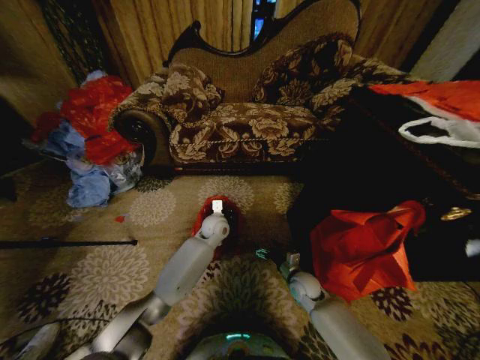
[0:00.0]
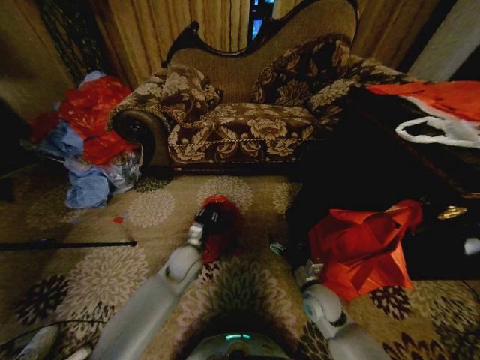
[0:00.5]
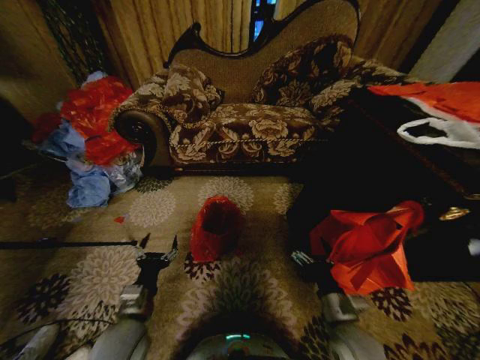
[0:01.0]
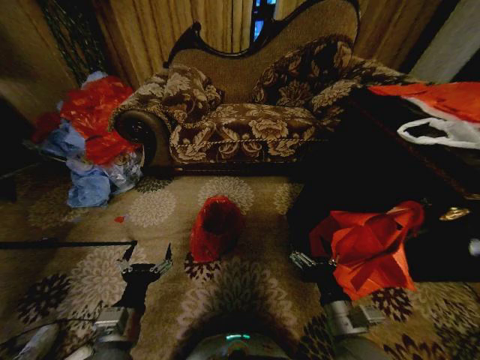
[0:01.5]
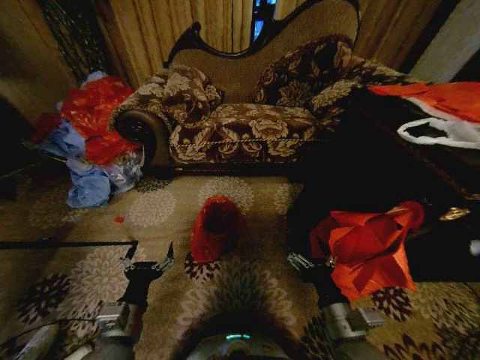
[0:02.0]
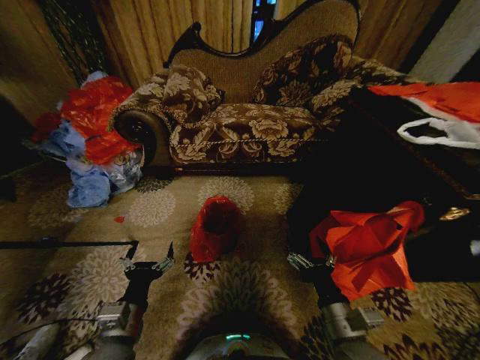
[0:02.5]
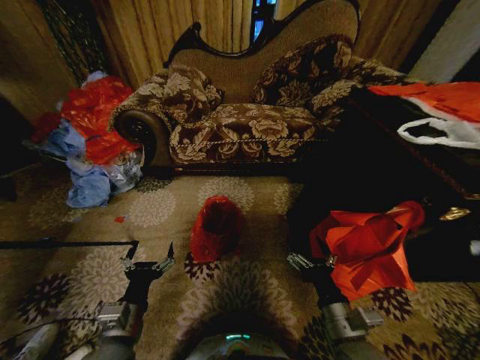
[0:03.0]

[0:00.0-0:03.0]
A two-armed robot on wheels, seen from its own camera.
Task of the whole recording: Place a garbage bag over the trash bin.
0:00.0 to 0:01.5: The right gripper travels backward and upward by some 25 cm. The left gripper travels backward by approximately 35 cm, and opens up.
0:01.5 to 0:03.0: The two grippers keep their place.

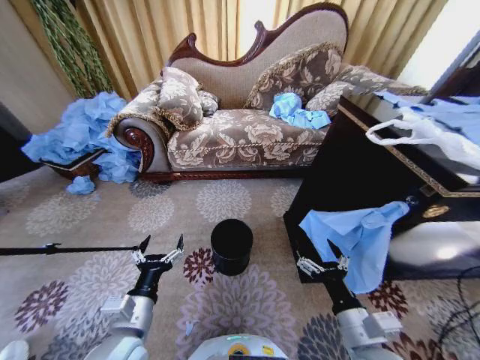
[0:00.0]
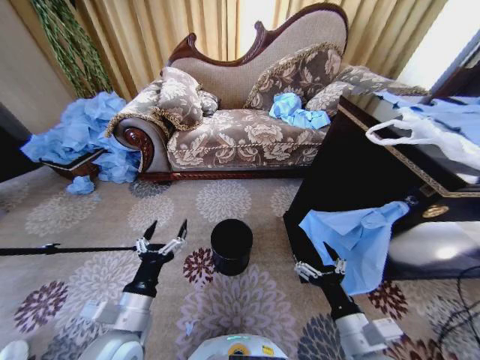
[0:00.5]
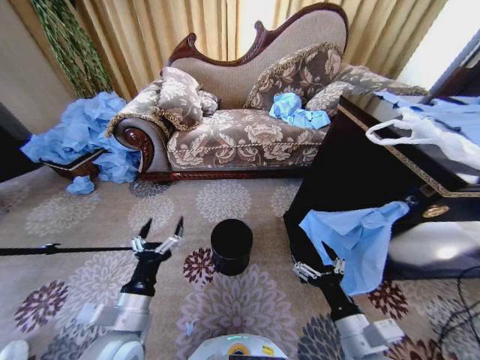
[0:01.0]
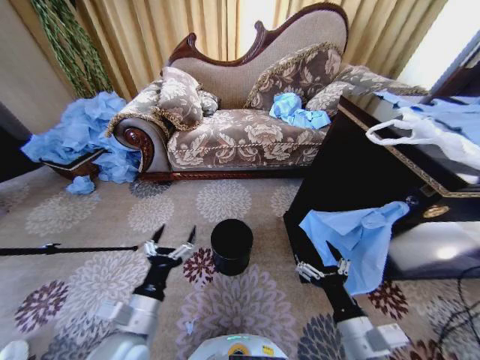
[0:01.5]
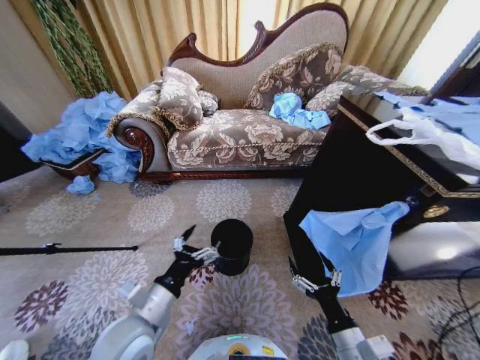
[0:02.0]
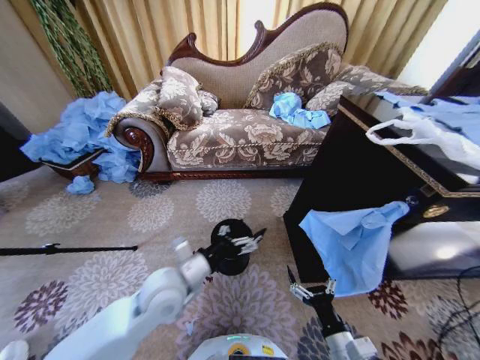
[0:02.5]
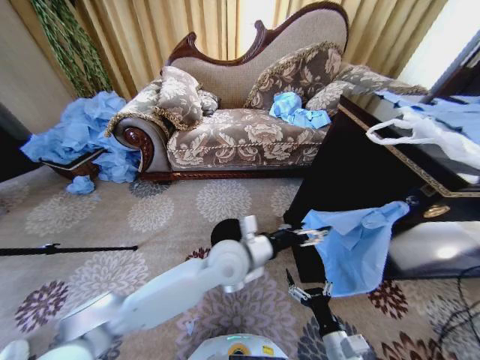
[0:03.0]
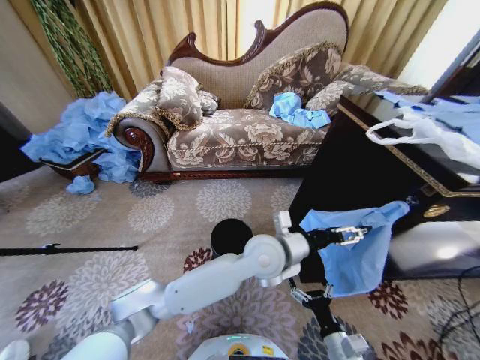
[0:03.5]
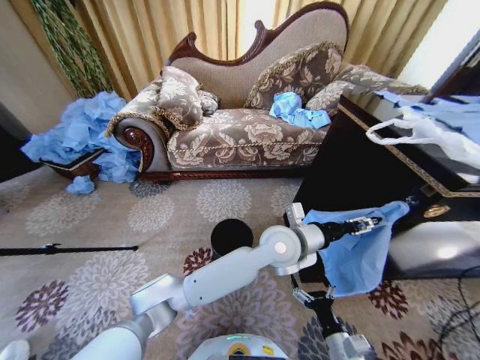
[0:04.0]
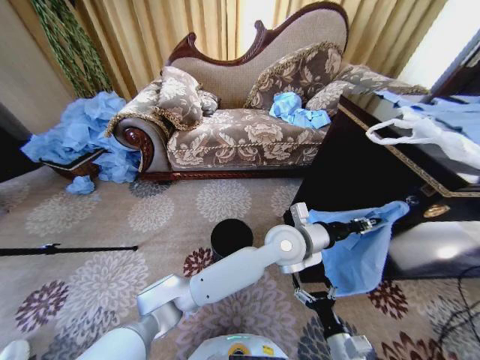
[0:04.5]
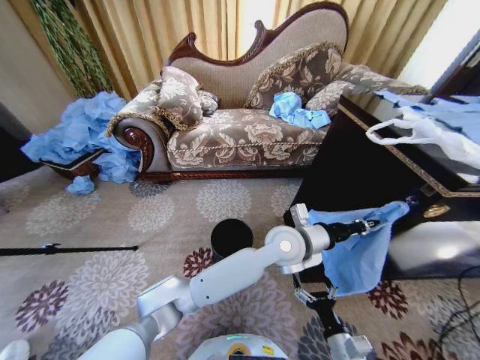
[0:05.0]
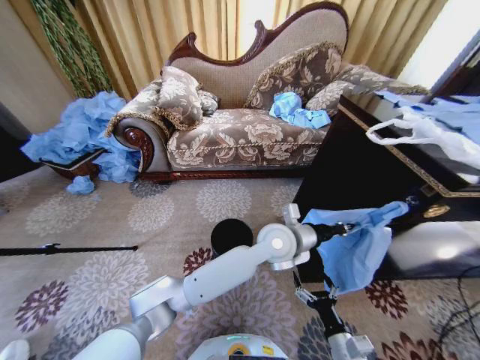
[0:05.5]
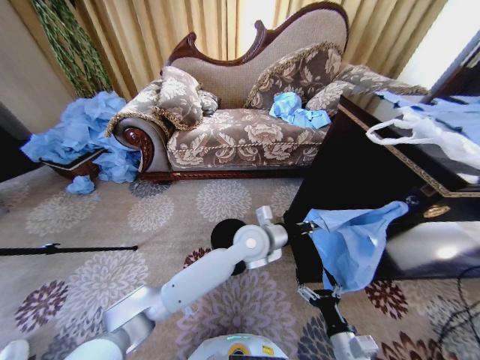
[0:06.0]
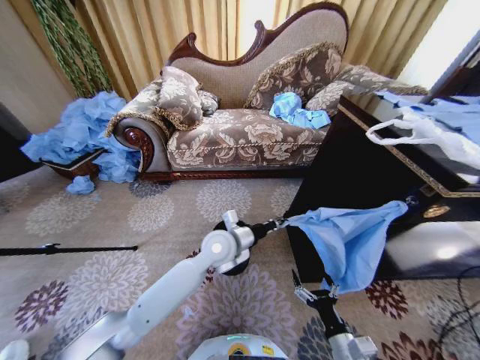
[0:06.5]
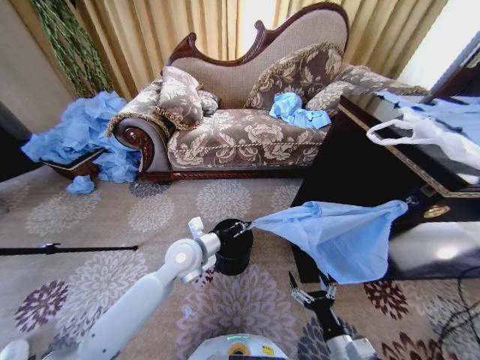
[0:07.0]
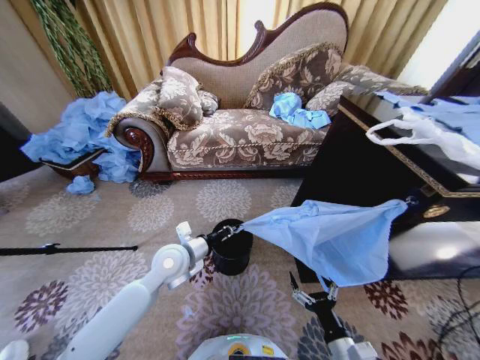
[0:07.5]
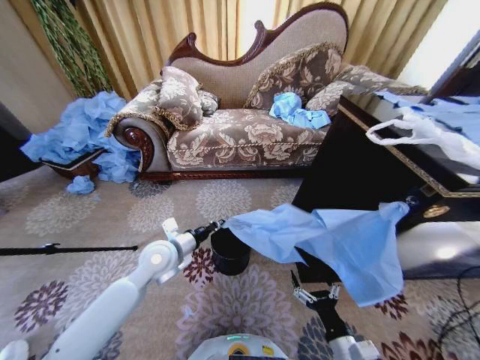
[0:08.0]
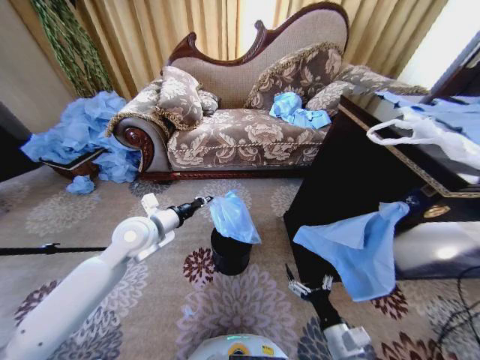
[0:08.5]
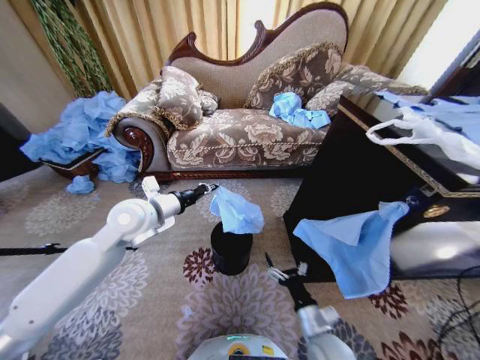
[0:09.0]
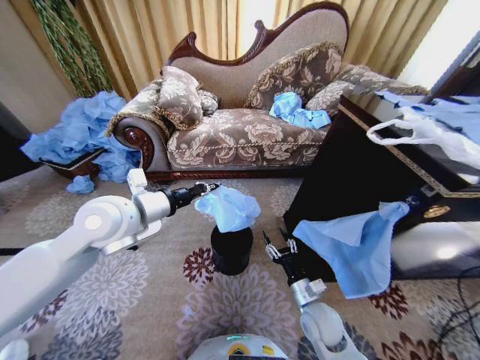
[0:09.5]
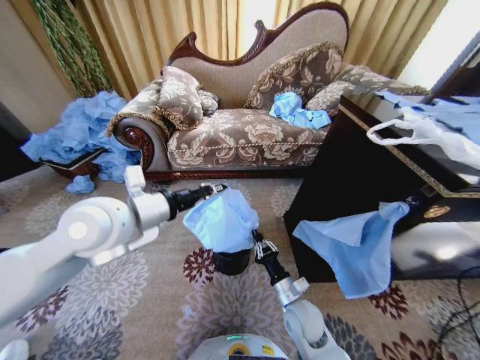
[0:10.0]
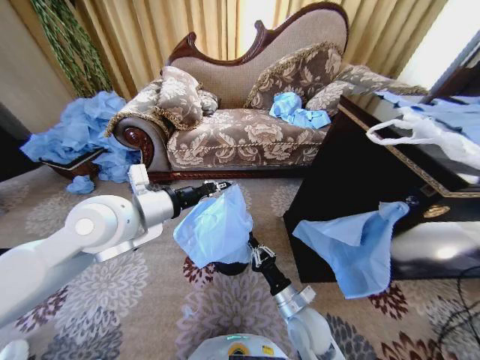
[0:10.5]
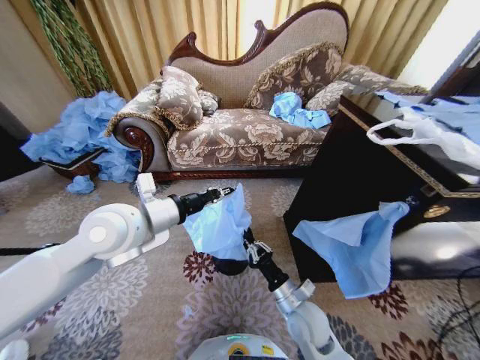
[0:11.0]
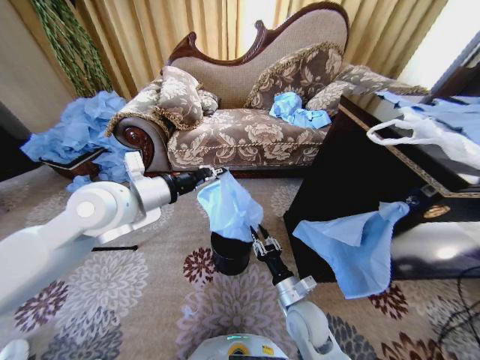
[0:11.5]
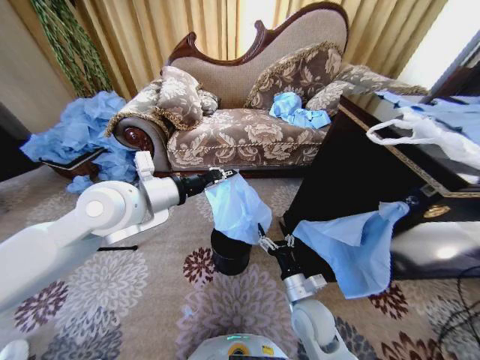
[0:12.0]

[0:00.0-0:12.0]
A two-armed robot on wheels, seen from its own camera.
Task of the whole recording: Place a garbage bag over the trash bin.
0:02.0 to 0:04.0: The left gripper is displaced to the right and forward by some 35 cm, and closes. Meanwhile the right gripper is displaced downward by roughly 10 cm.
0:04.0 to 0:06.0: The left gripper shifts approximately 5 cm to the left, and closes.
0:06.0 to 0:08.0: The left gripper is displaced to the left by roughly 25 cm.
0:08.0 to 0:10.0: The right gripper heads forward and to the left, covering roughly 15 cm, and closes its fingers. Meanwhile the left gripper moves upward, roughly 20 cm.
0:10.0 to 0:12.0: The right gripper opens up.

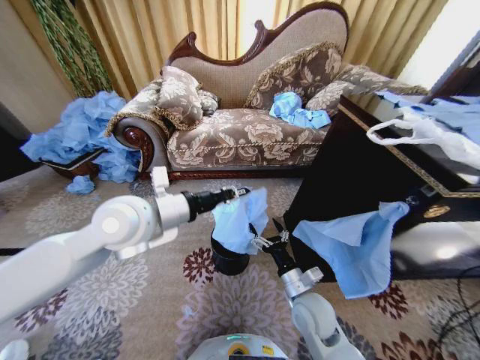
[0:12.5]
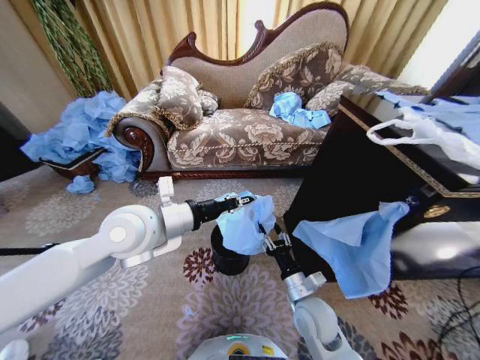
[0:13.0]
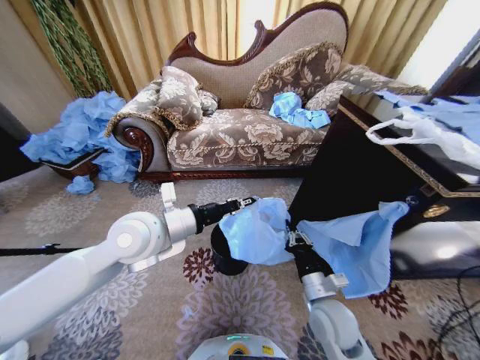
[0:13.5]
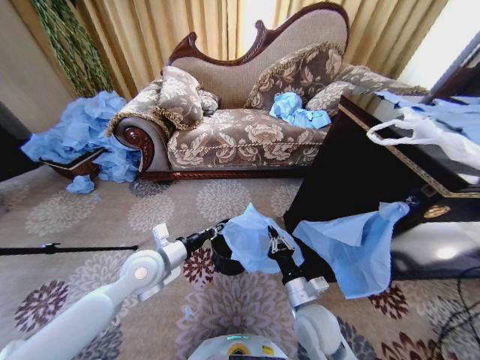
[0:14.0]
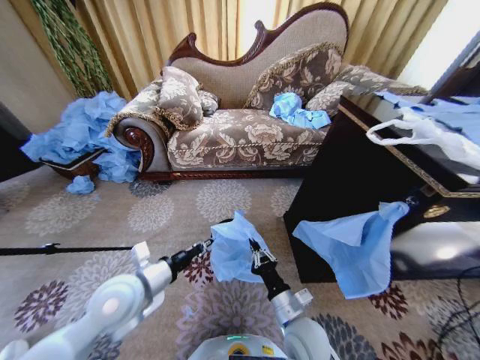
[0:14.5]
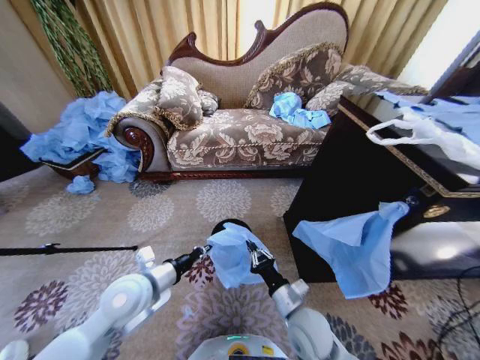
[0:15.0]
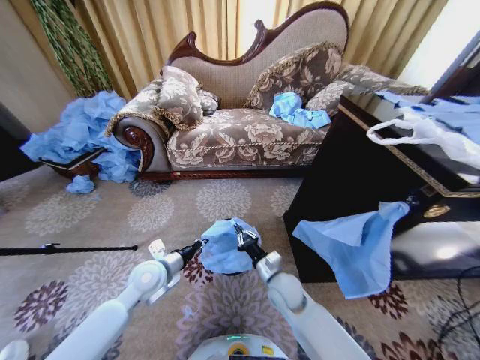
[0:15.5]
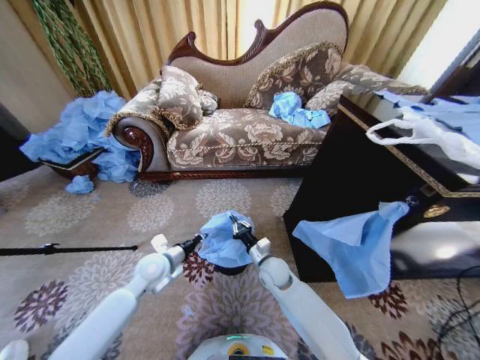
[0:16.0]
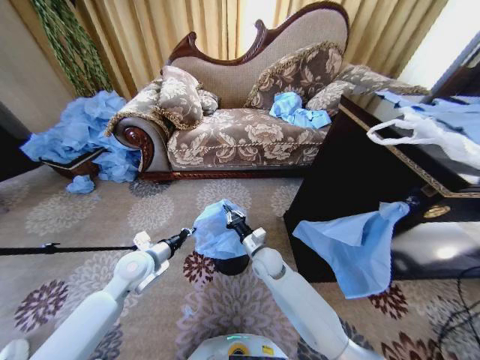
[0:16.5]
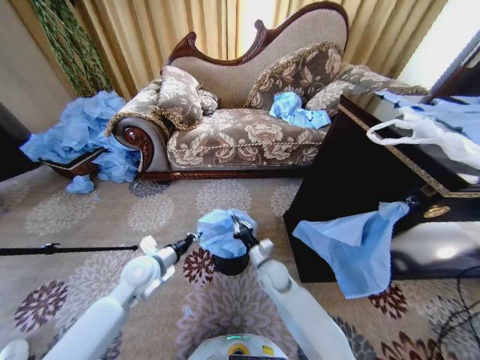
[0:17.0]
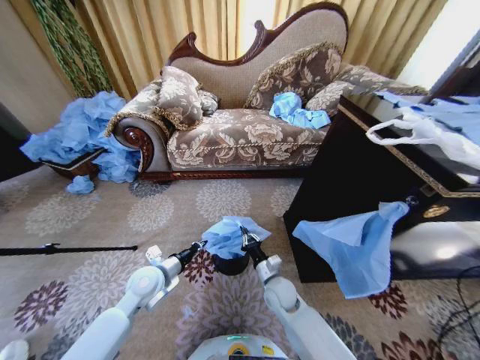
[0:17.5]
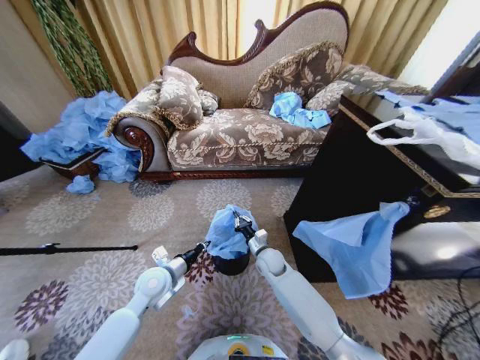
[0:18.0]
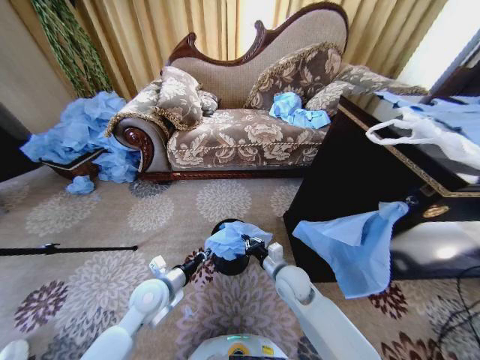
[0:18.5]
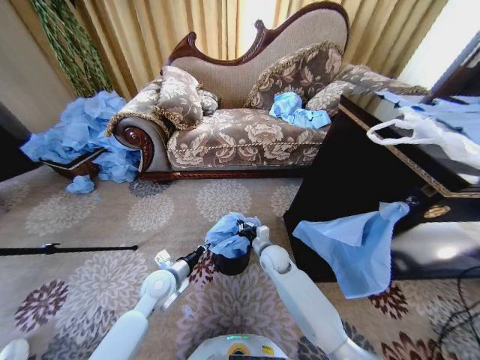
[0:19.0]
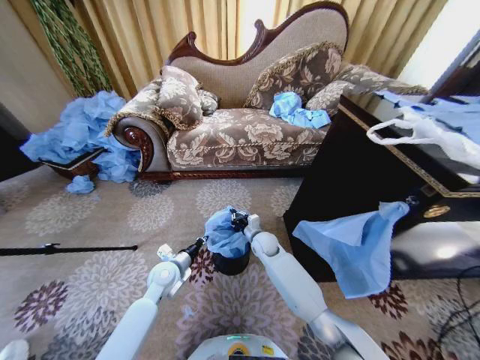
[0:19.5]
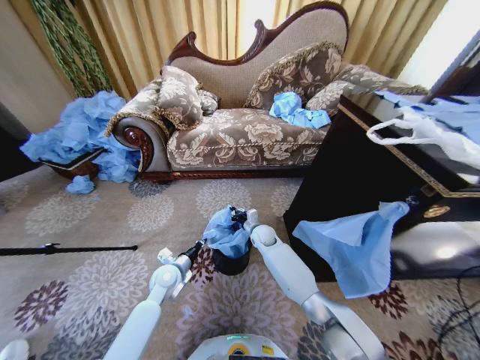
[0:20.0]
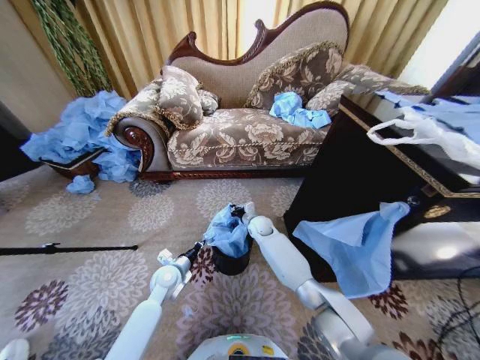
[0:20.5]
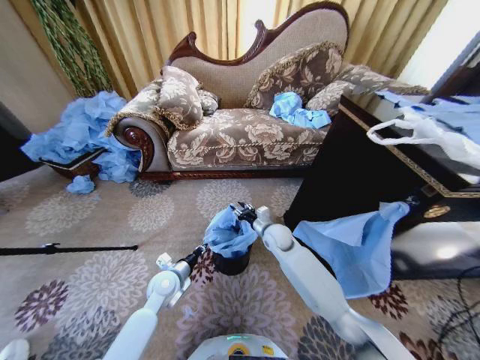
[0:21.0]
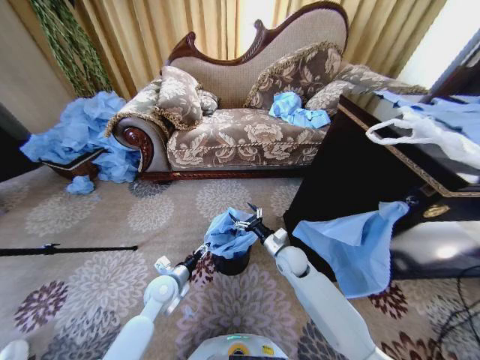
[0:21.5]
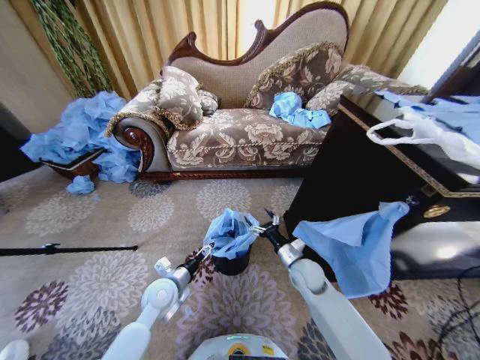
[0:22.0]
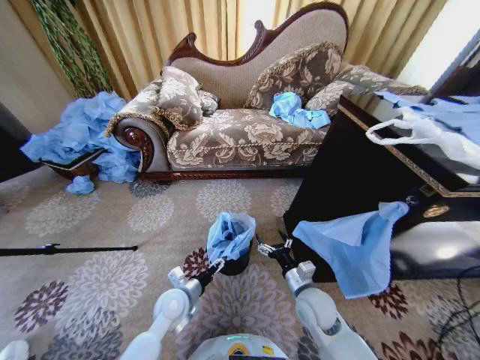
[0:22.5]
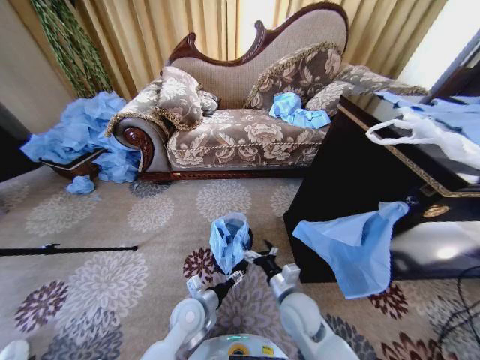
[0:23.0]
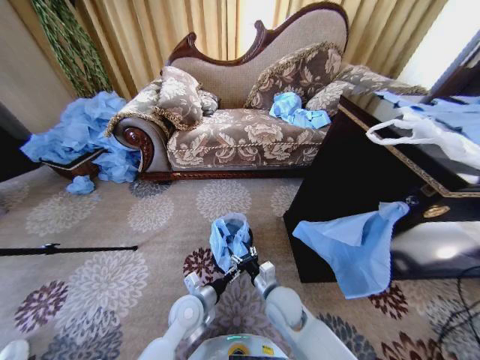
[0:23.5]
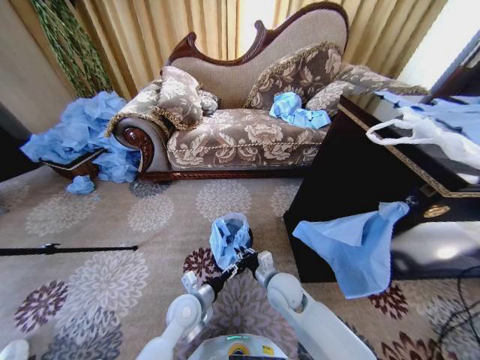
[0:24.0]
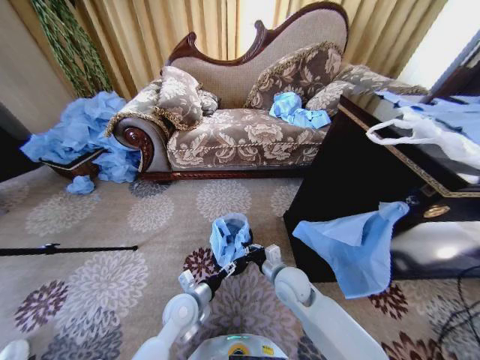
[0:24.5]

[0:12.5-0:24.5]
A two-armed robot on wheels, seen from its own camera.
Task of the whole recording: Place a garbage bag over the trash bin.
0:12.5 to 0:14.5: The right gripper travels backward by roughly 5 cm, and closes up, while the left gripper shifts approximately 15 cm downward and backward.
0:14.5 to 0:16.5: The right gripper is displaced forward by about 20 cm, while the left gripper shifts roughly 10 cm forward and downward.
0:16.5 to 0:18.5: The right gripper moves forward and backward over roughly 10 cm, changing direction 2 times. The left gripper heads backward, covering about 5 cm.
0:18.5 to 0:20.5: The right gripper goes about 20 cm forward; the left gripper shifts some 10 cm downward and forward.
0:20.5 to 0:22.5: The right gripper moves backward and to the right, roughly 30 cm, and opens up. The left gripper travels backward and to the right by some 10 cm, and opens up.
0:22.5 to 0:24.5: The right gripper travels to the left by some 5 cm, and closes up.
